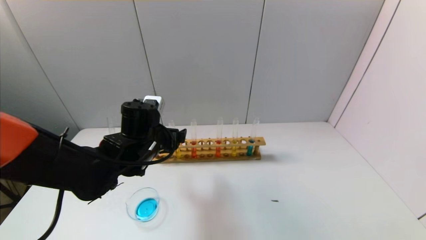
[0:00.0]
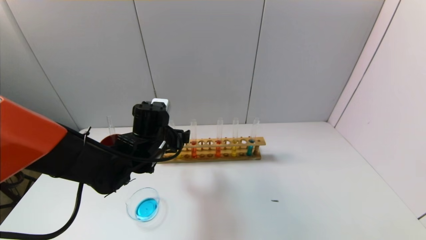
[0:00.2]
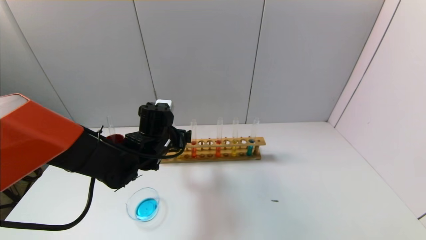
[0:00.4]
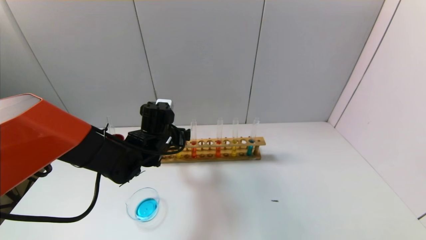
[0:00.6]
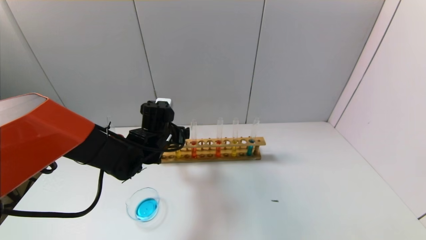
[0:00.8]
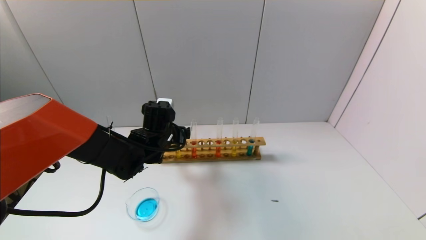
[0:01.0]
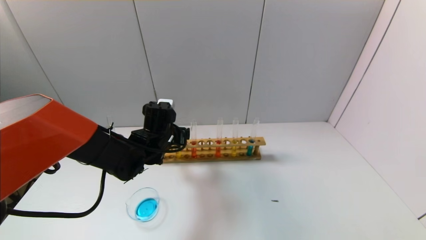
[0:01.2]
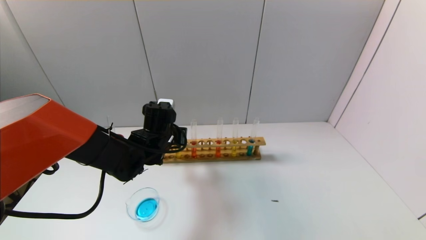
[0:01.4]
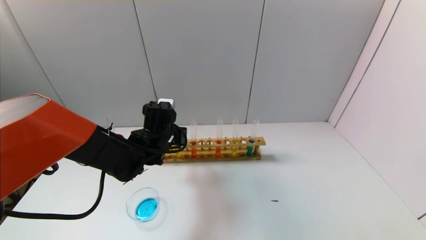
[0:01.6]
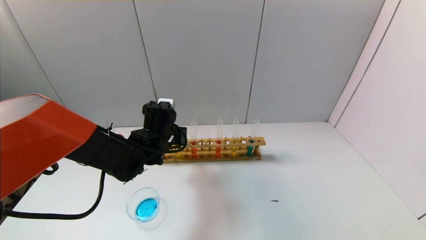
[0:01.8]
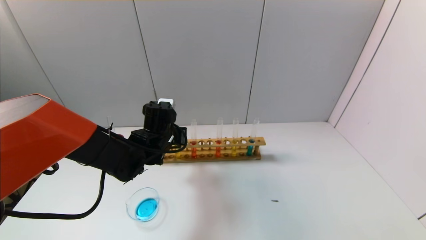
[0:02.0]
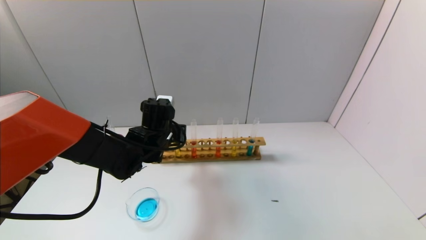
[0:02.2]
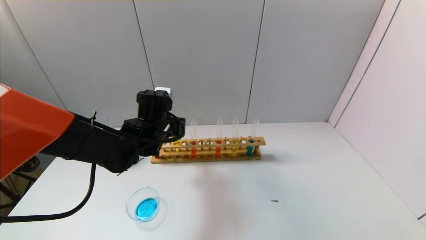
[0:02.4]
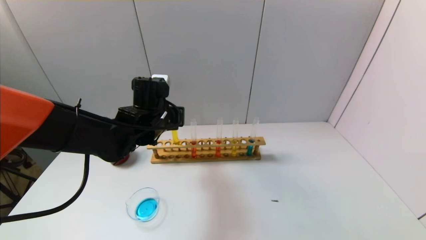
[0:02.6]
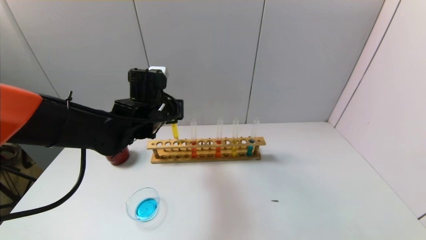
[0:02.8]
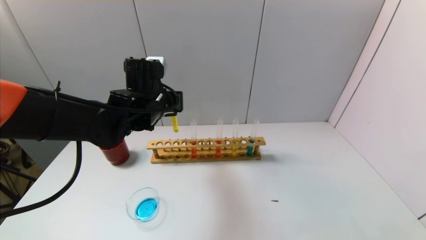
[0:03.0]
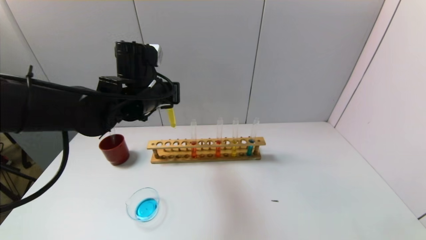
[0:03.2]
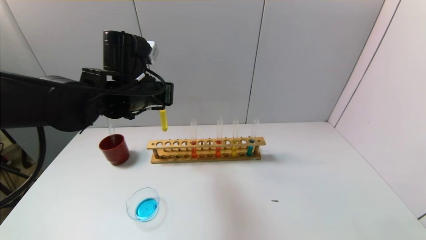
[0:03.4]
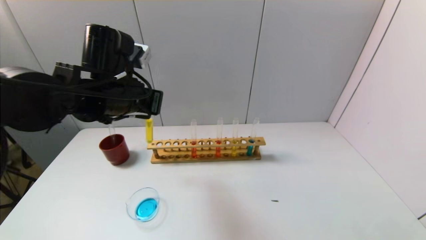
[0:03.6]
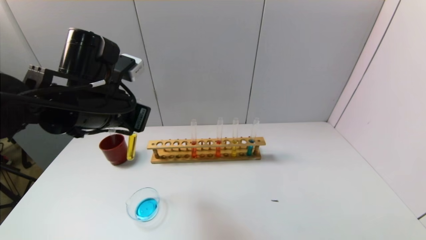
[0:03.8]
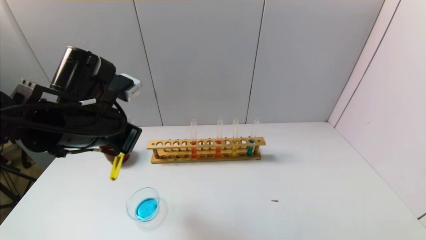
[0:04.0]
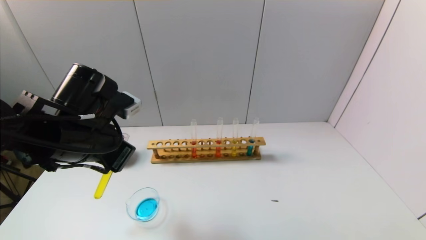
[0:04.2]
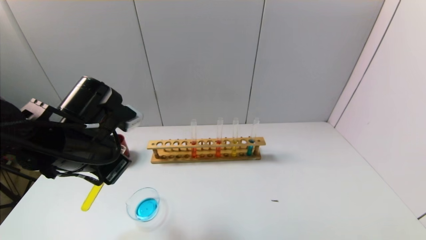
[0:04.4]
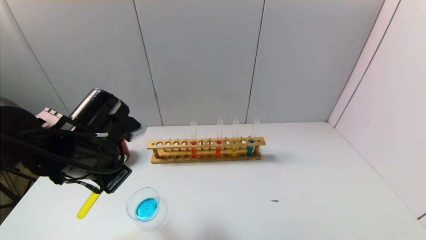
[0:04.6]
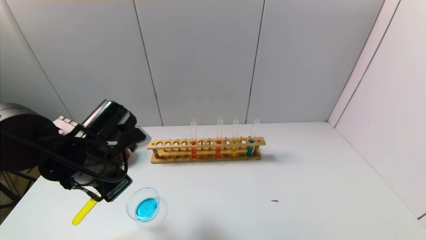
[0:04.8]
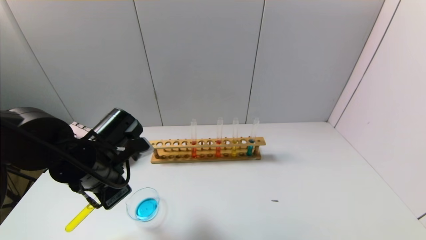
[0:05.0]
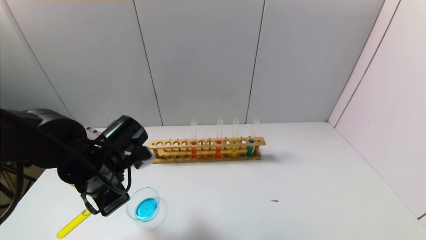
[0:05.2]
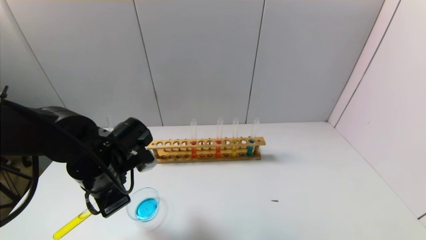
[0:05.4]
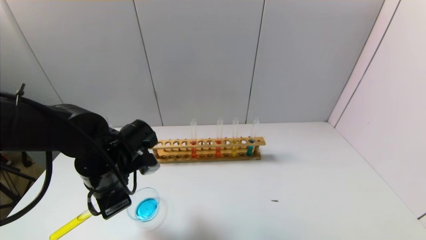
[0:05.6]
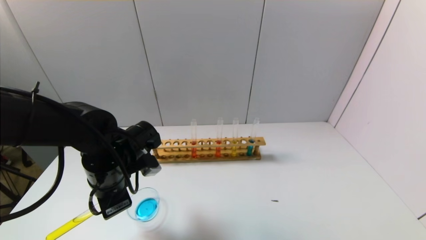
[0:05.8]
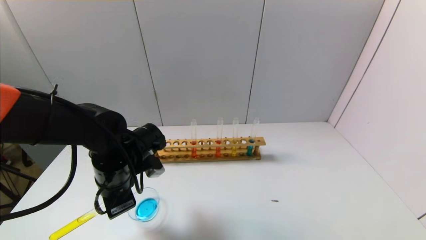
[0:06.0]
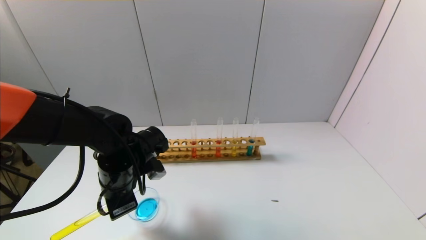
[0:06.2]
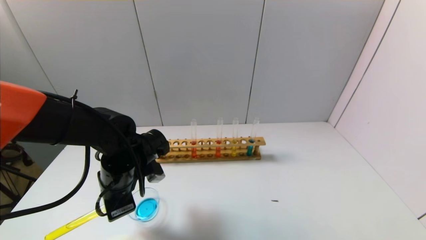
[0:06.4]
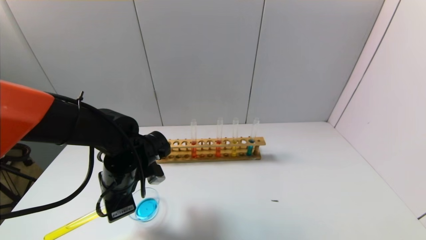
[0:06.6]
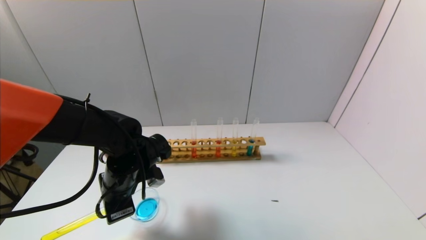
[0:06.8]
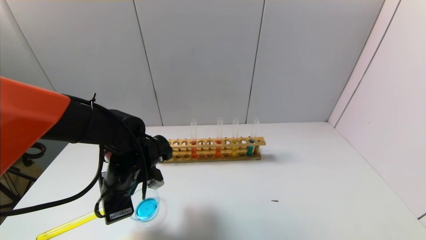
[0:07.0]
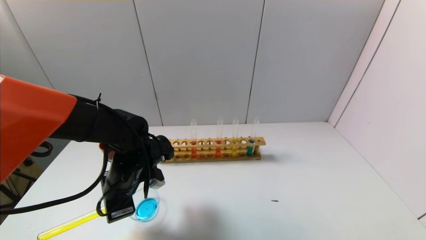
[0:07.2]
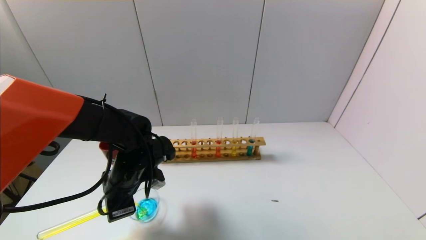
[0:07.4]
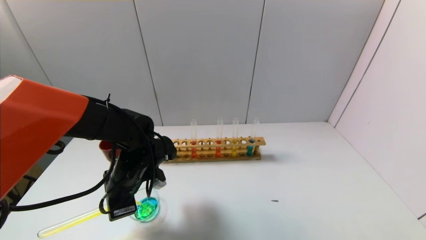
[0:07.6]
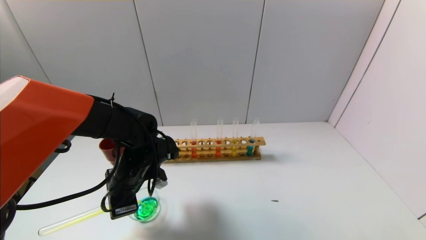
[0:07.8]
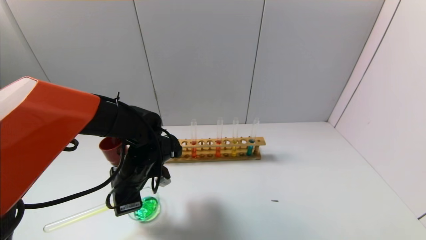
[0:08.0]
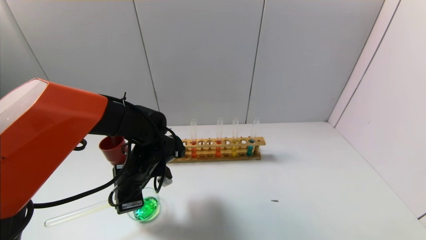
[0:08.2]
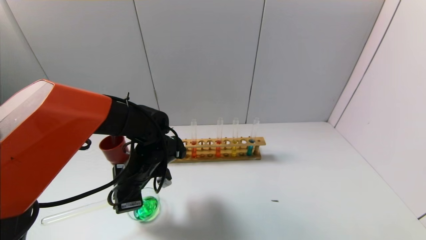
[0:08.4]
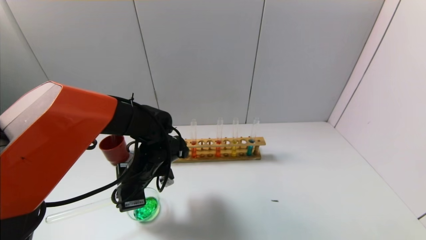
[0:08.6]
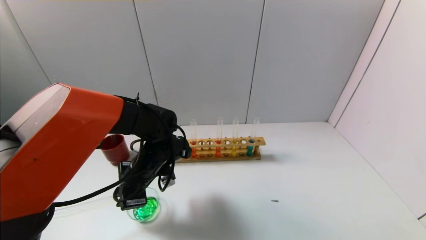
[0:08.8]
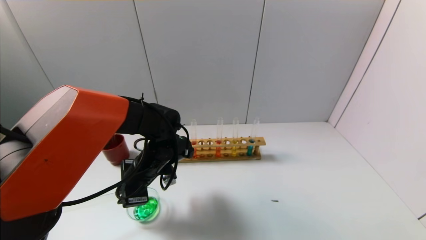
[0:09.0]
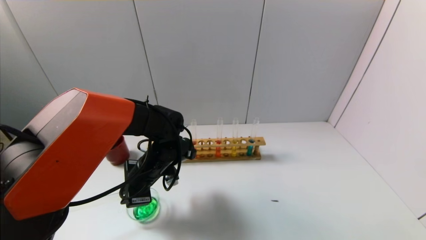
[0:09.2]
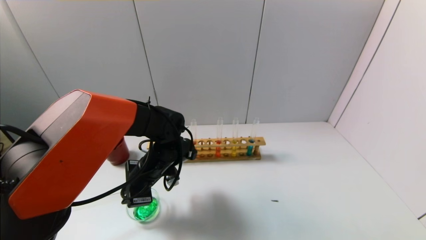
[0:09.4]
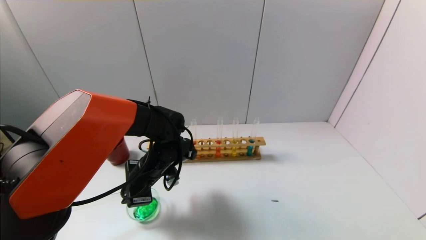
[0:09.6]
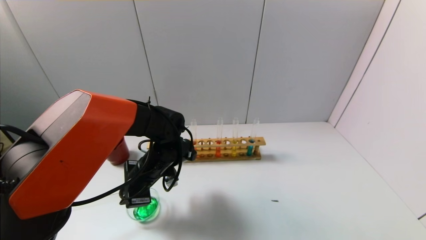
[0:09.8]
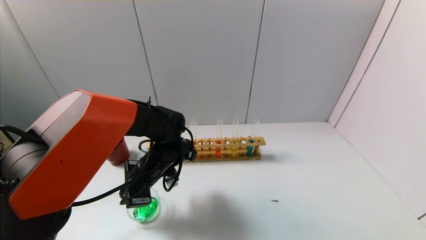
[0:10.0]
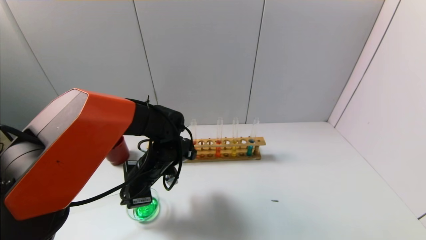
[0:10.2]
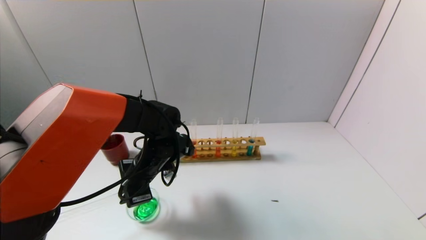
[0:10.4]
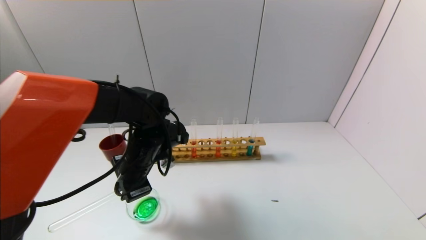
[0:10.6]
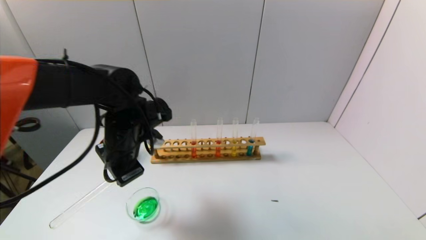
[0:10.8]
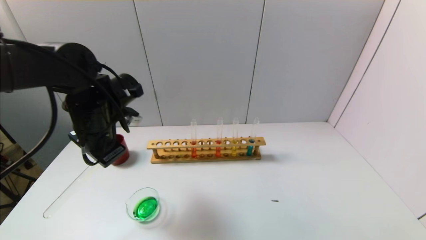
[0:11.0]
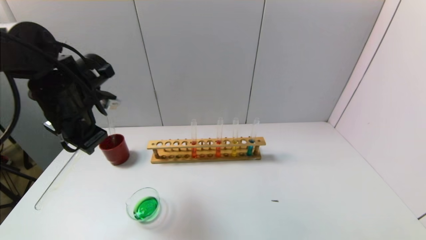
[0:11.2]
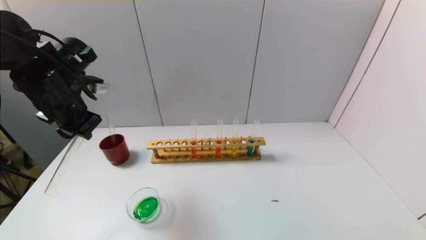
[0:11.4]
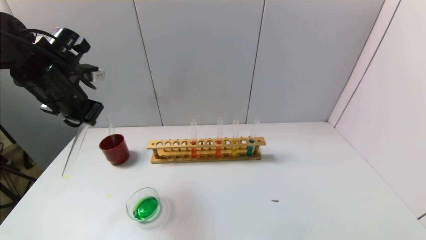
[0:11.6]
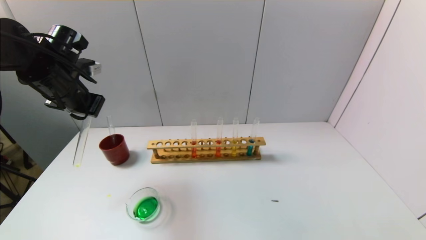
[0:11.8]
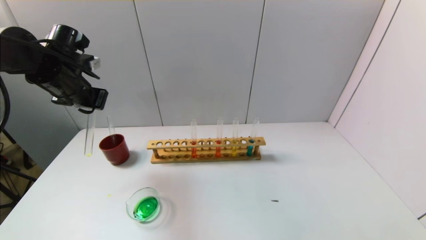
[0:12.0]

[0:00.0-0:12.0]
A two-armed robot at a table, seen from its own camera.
Task of the whole recording: pick up the test tube with yellow pigment and the test tube with blue pigment by grippers and pour them into the beaker.
Step, 0:00.0 to 0:01.8: Grasp the yellow reagent with the left gripper.
Step, 0:02.0 to 0:10.6: Pour the yellow reagent into the graduated cylinder with the left gripper.
0:00.0 to 0:01.6: The left gripper ends up roughly 5 cm from where it was, and closes up.
0:01.6 to 0:03.0: The left gripper shifts approximately 10 cm upward.
0:03.0 to 0:04.4: The left gripper heads backward and to the left, covering approximately 15 cm.
0:04.4 to 0:06.0: The left gripper moves downward, roughly 10 cm.
0:06.0 to 0:07.6: The grippers make only small movements.
0:07.6 to 0:10.4: The grippers make only small movements.
0:10.4 to 0:12.0: The left gripper goes about 25 cm to the left and upward.

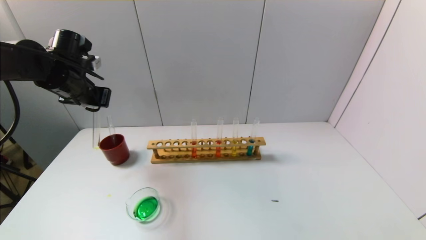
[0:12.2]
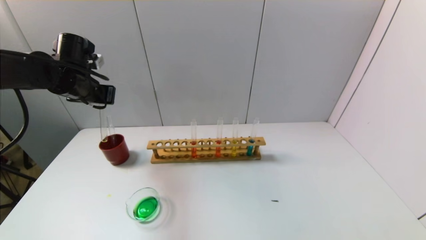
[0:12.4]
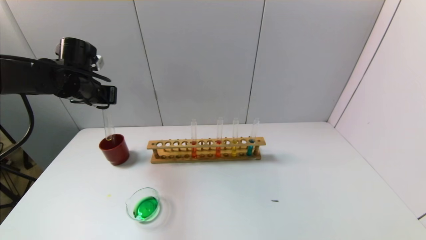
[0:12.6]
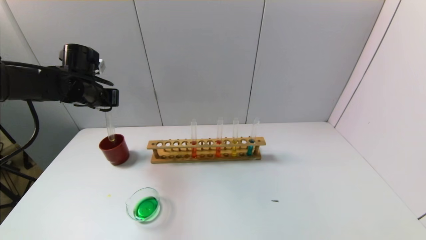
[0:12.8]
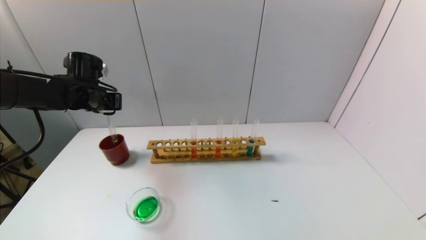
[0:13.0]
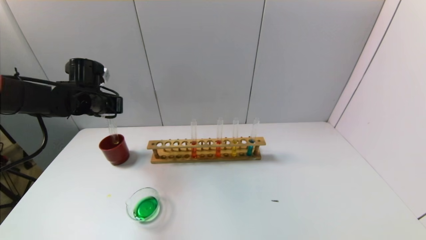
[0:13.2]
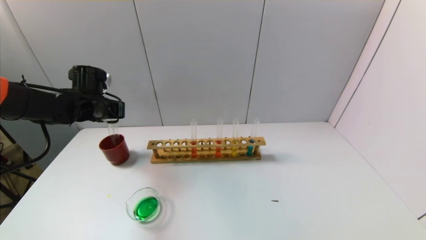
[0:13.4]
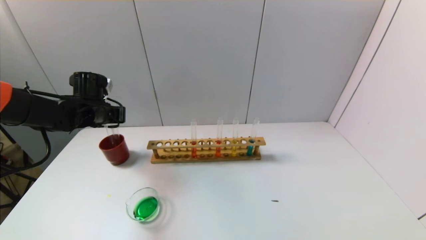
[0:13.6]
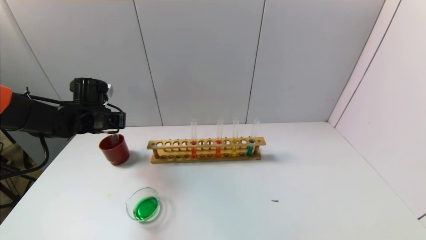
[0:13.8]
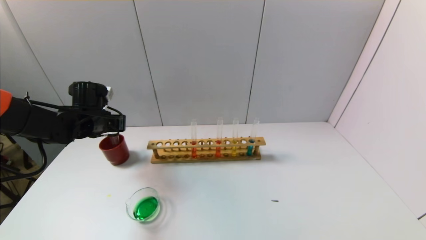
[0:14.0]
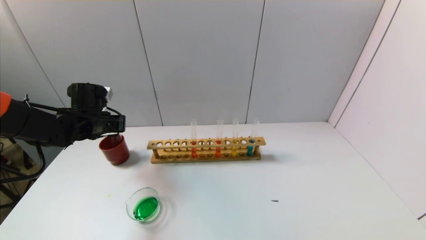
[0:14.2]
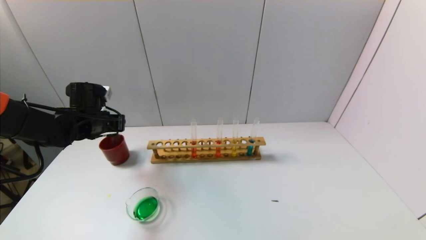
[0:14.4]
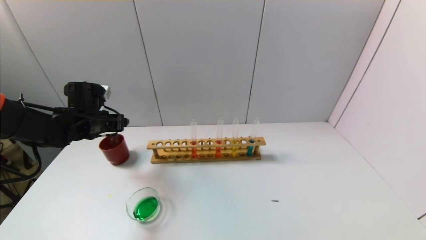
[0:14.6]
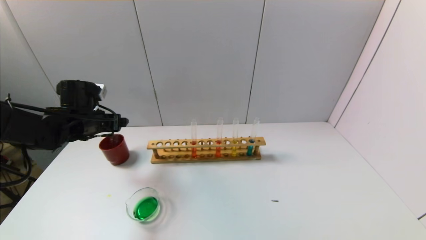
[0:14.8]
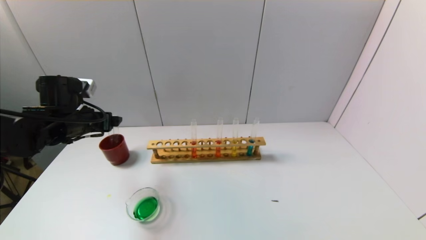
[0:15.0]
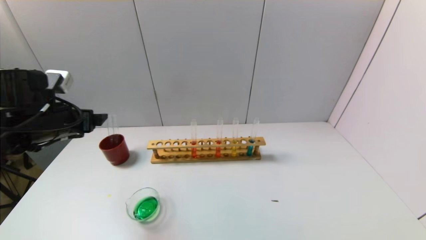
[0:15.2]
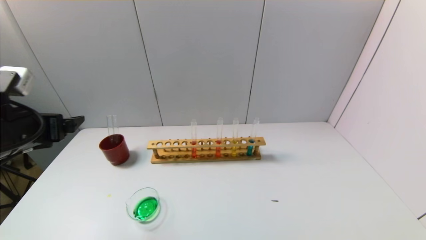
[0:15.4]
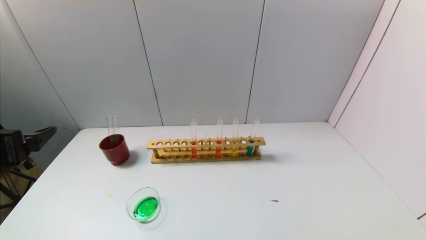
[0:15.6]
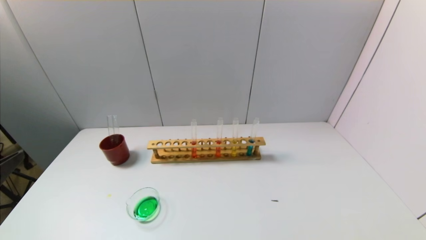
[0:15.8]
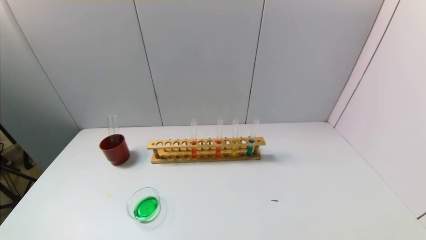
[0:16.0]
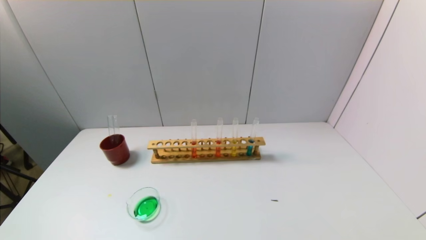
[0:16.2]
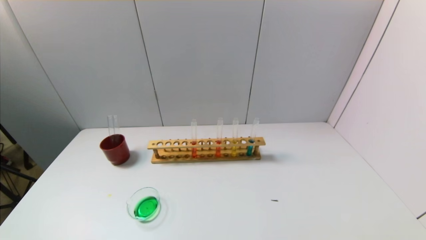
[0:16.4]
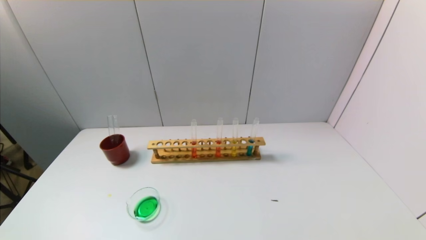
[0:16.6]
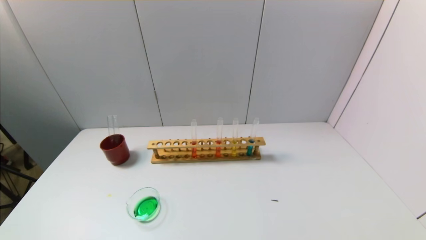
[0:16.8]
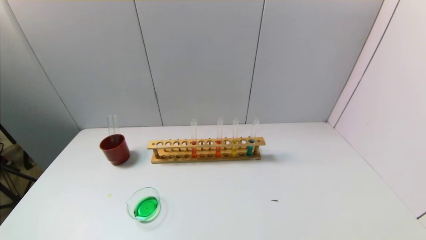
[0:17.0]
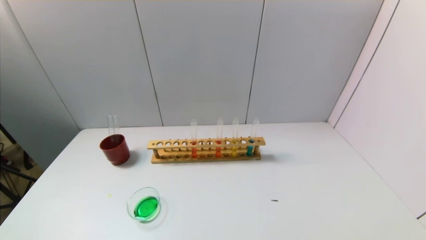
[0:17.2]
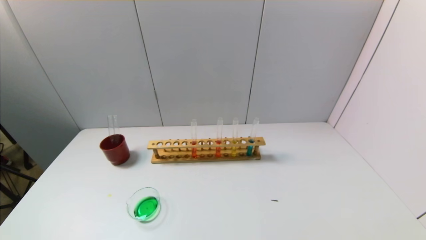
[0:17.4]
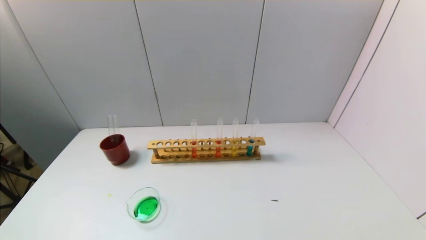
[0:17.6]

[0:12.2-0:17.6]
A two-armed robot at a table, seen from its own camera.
Task of the whole recording: pick up the test tube with yellow pigment and the test tube with blue pigment by grippers and pour them into the beaker.
Step, 0:12.2 to 0:14.6: Place the test tube into the brown cup with the left gripper.
0:12.2 to 0:13.6: The left gripper goes about 10 cm downward.
0:13.6 to 0:15.0: The left gripper moves backward, about 5 cm, and opens its fingers.
0:15.0 to 0:16.2: The left gripper is displaced backward by roughly 35 cm.
